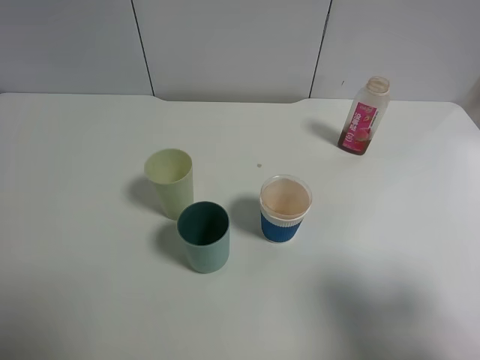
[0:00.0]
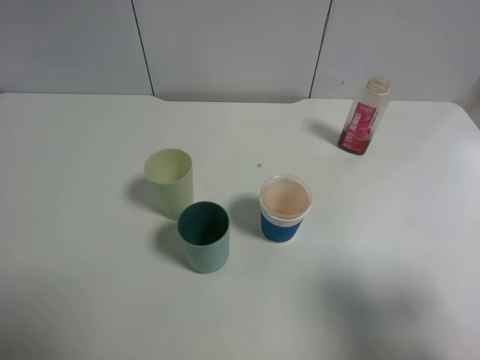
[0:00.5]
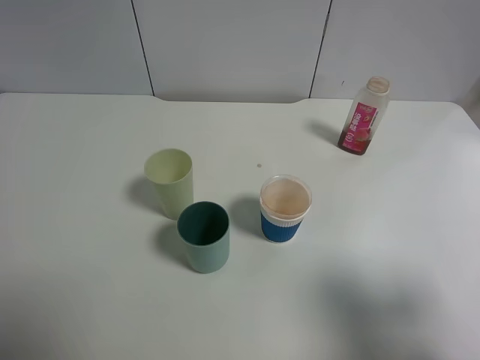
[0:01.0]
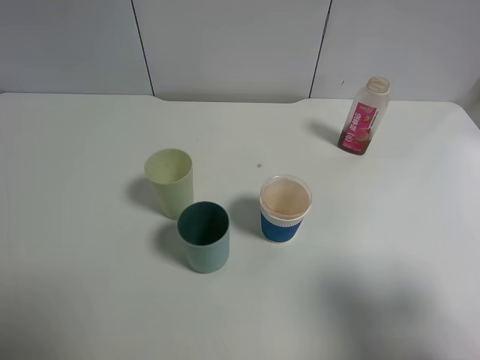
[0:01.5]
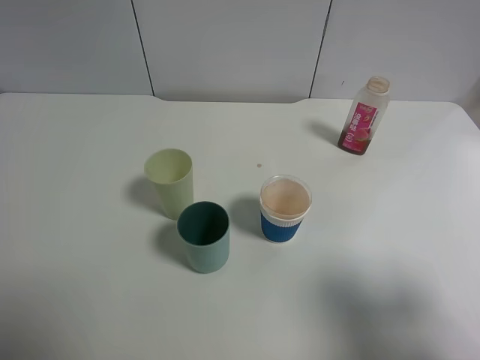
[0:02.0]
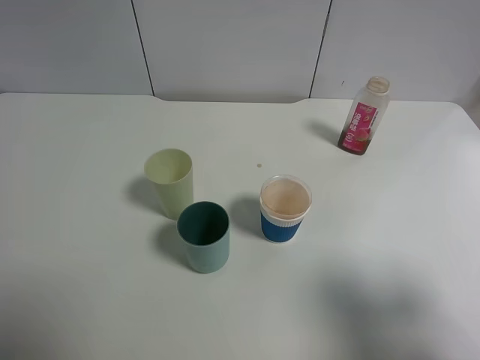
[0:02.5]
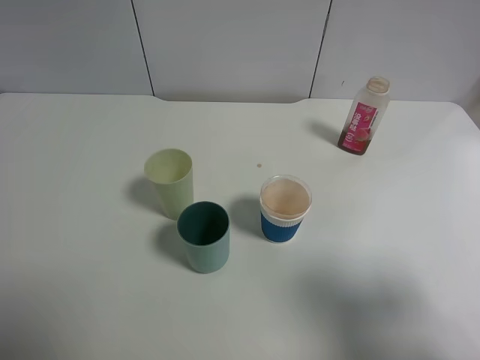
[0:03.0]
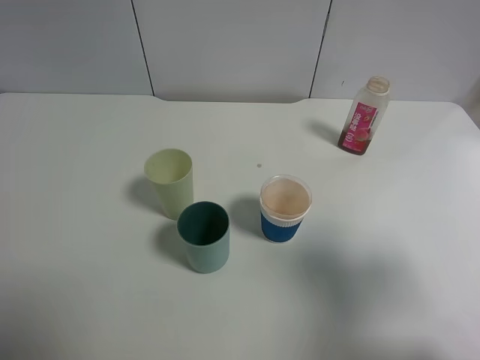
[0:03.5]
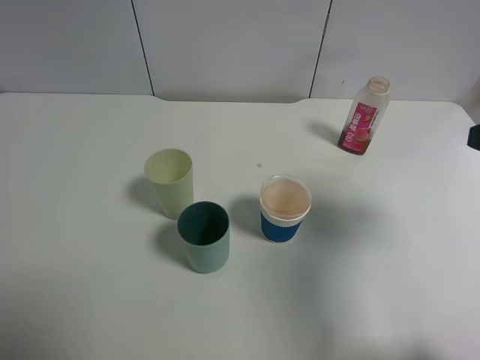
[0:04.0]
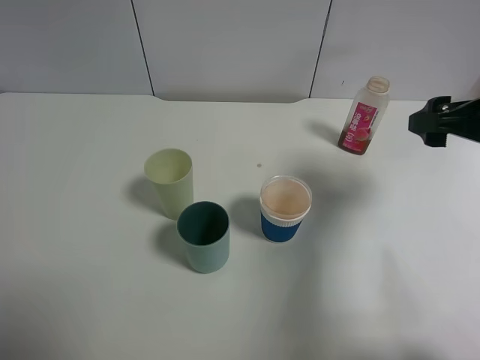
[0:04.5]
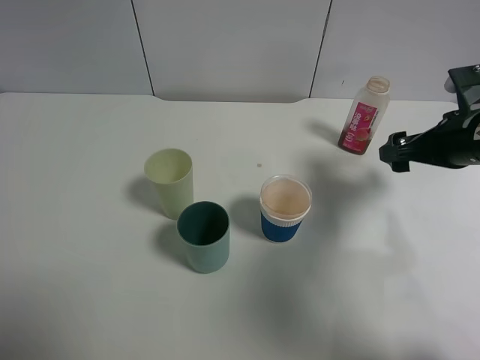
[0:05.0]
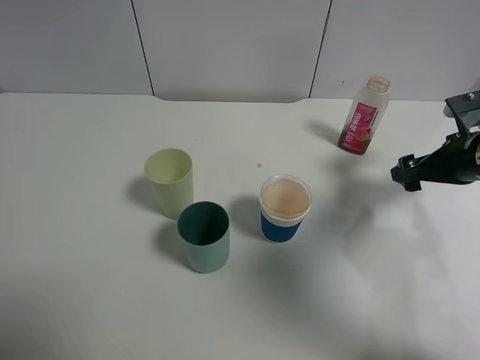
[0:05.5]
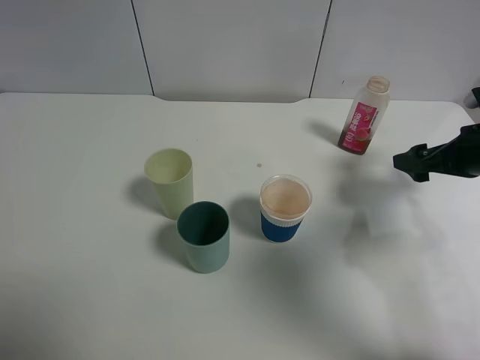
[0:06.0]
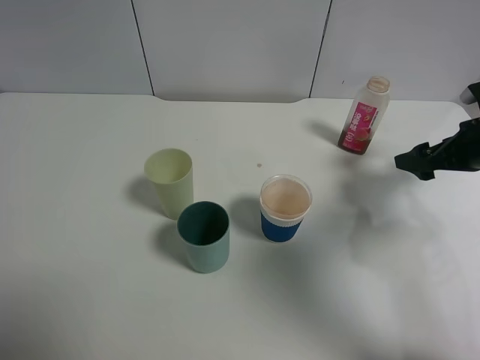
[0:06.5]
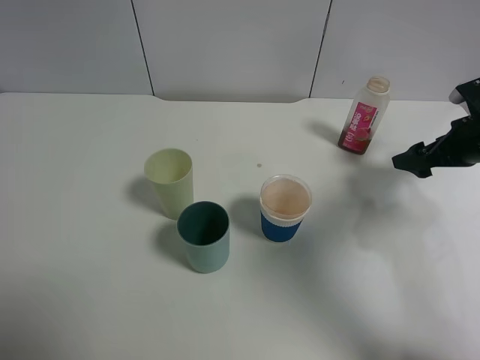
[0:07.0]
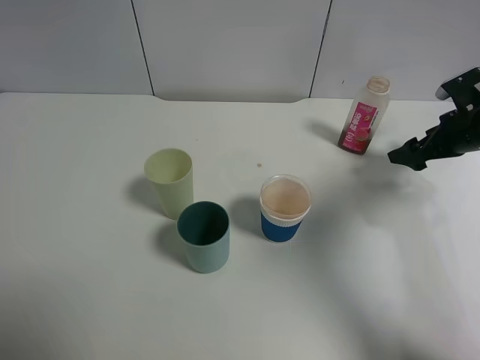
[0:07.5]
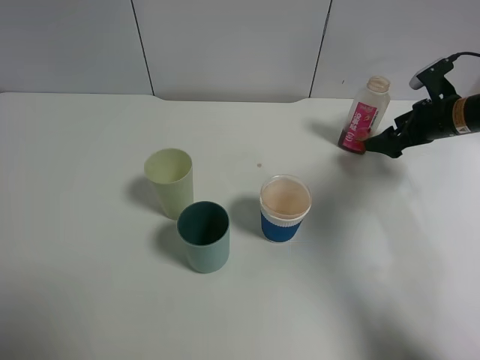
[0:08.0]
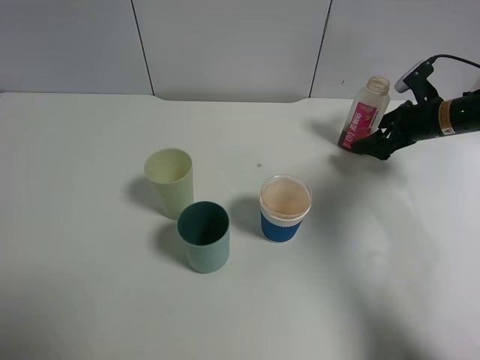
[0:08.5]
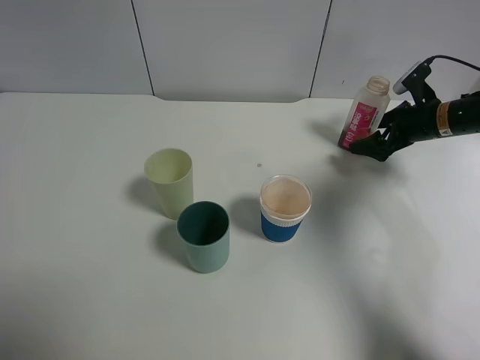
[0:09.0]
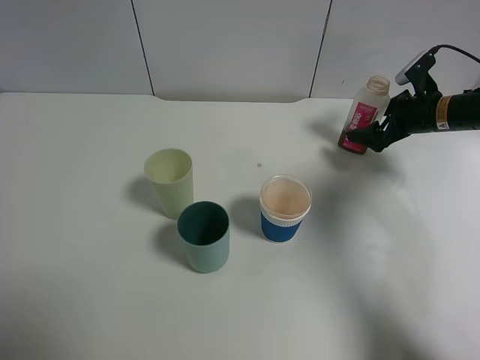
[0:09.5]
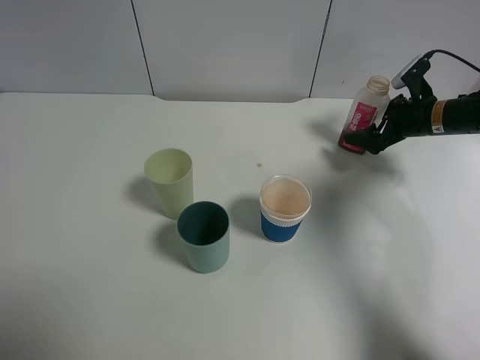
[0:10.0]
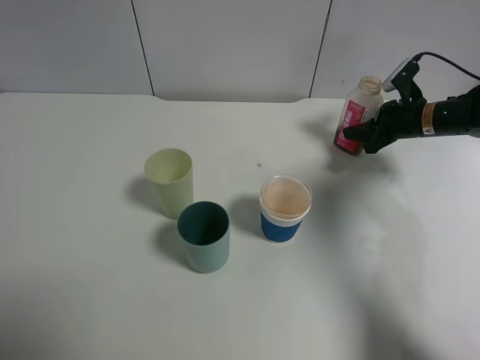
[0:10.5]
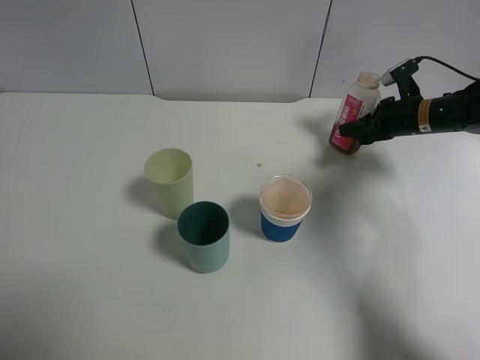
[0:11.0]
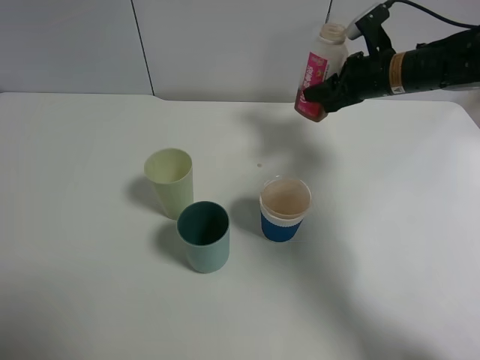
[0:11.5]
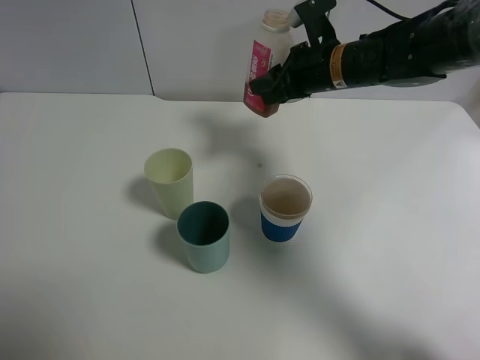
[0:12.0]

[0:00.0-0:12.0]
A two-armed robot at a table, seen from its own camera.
Task of the whole recording: use a gripper to hold the bottle of the drink and pour it into a random cup.
Step, 0:00.0 to 0:10.5: Grasp the cranberry juice bottle with the right gripper.
0:00.0 to 0:02.0: Neither gripper changes place.
0:02.0 to 0:04.0: The right gripper travels forward by about 15 cm.
0:04.0 to 0:06.0: The right gripper goes roughly 20 cm downward and forward.
0:06.0 to 0:08.0: The right gripper heads forward, covering some 10 cm.
0:08.0 to 0:10.0: The grippers move only a little.
0:10.0 to 0:12.0: The right gripper shifts approximately 20 cm to the left and upward, and closes up.

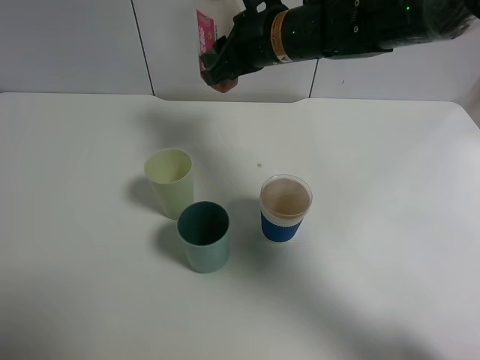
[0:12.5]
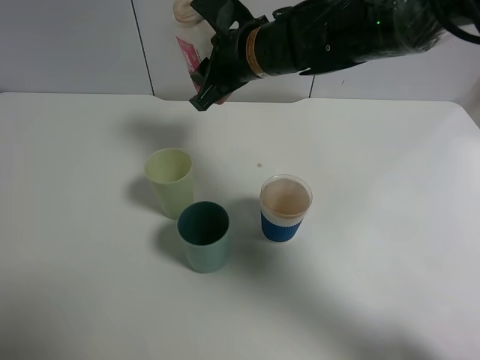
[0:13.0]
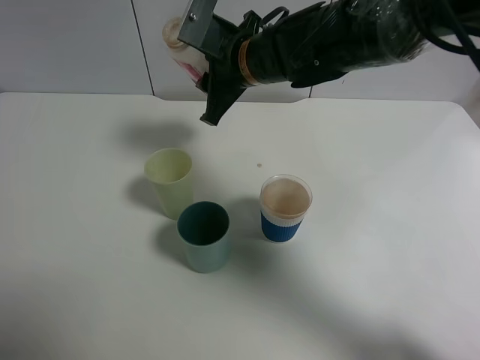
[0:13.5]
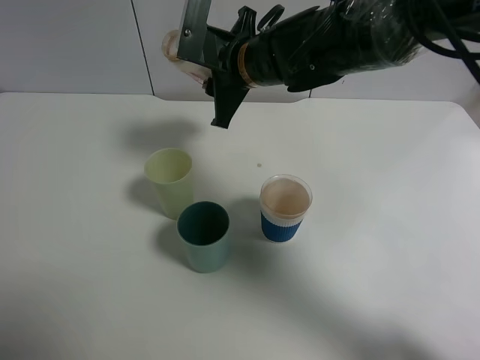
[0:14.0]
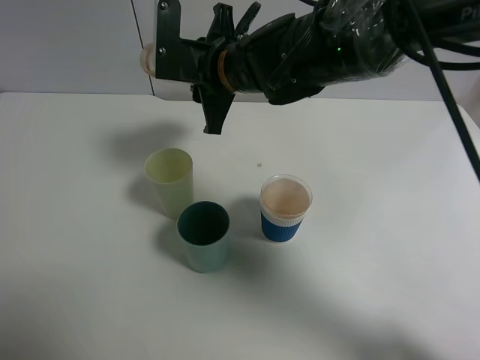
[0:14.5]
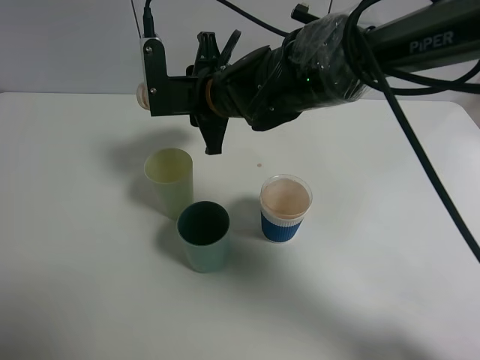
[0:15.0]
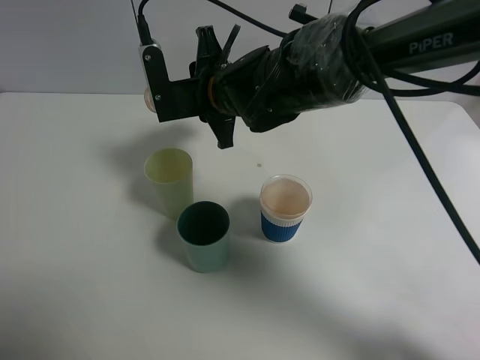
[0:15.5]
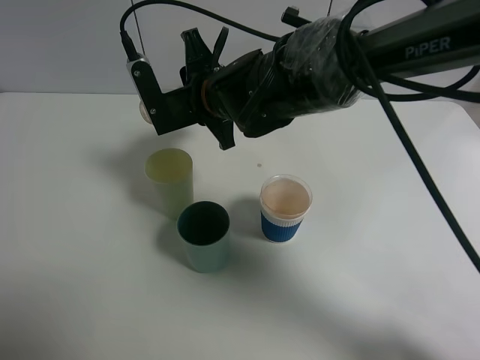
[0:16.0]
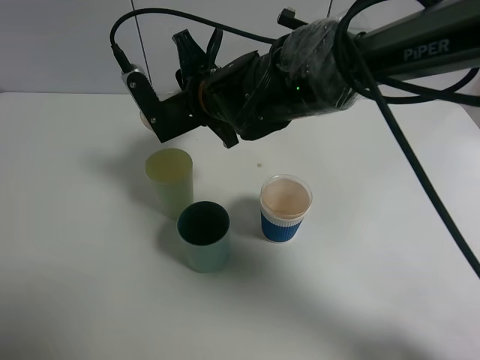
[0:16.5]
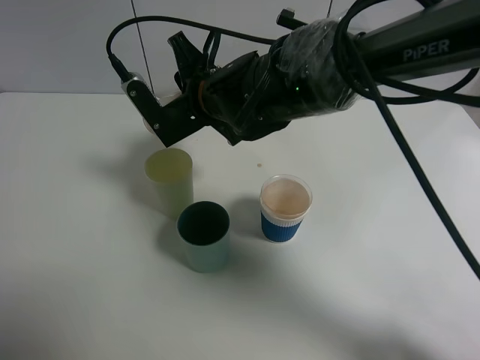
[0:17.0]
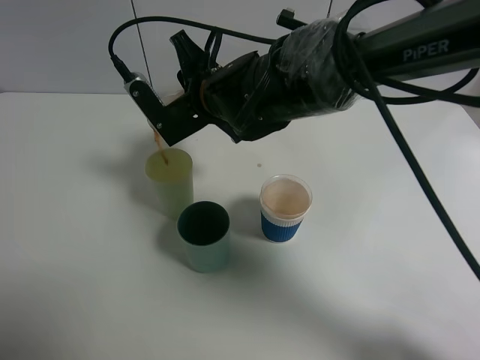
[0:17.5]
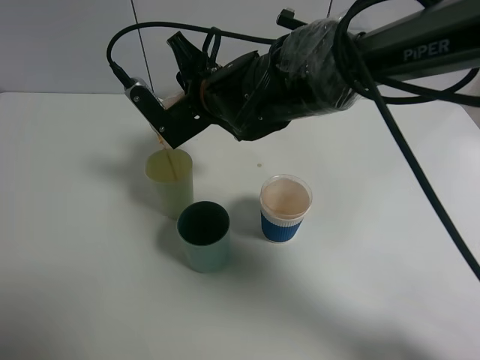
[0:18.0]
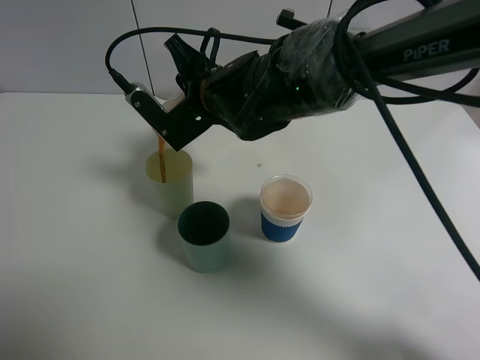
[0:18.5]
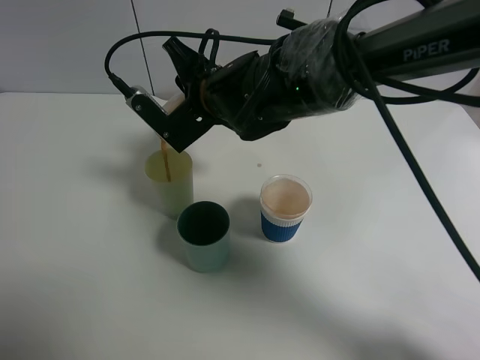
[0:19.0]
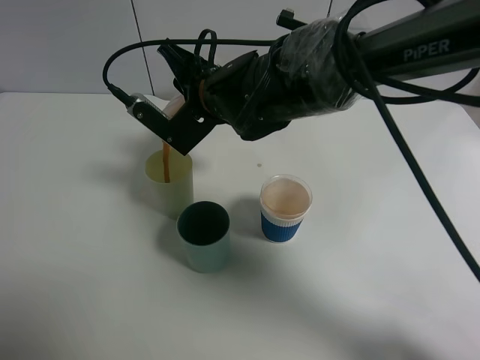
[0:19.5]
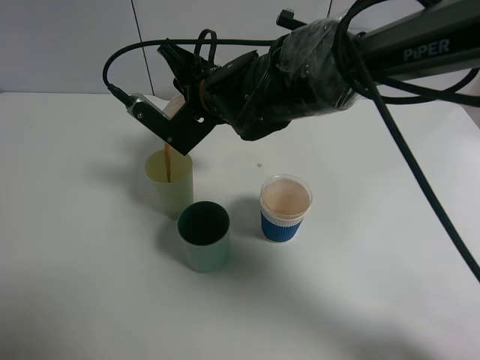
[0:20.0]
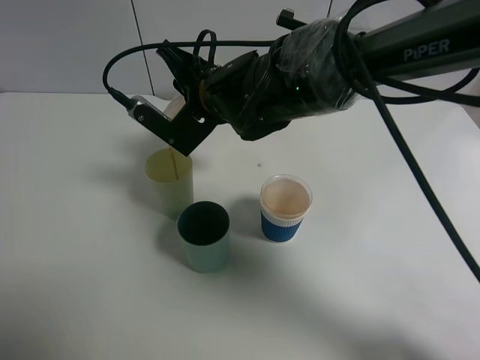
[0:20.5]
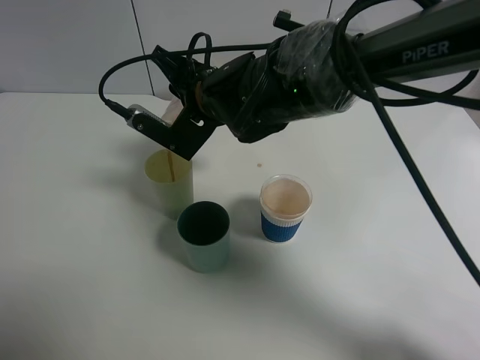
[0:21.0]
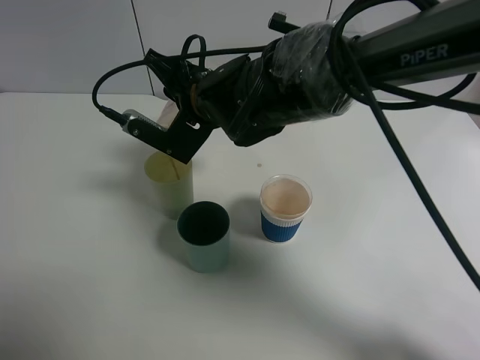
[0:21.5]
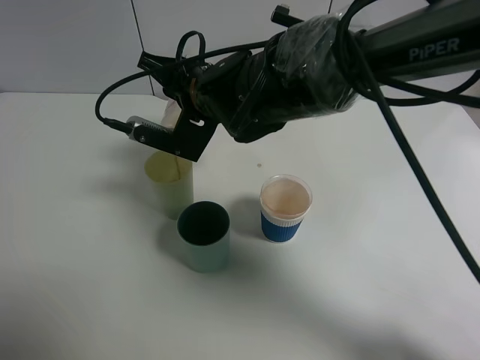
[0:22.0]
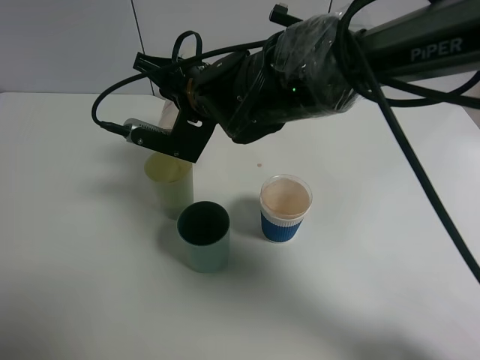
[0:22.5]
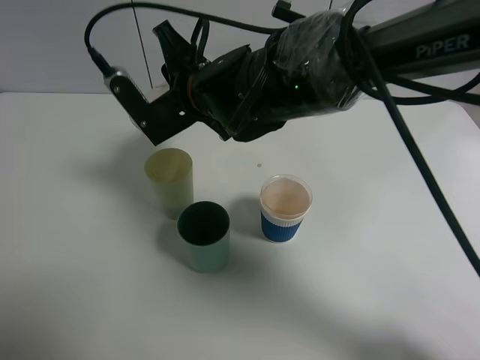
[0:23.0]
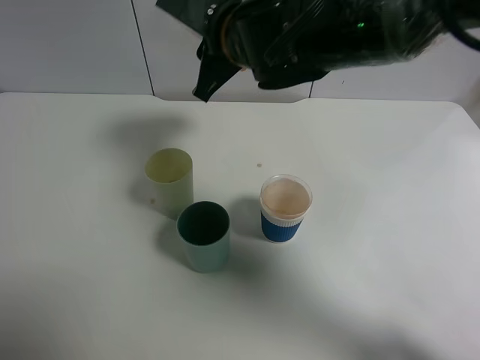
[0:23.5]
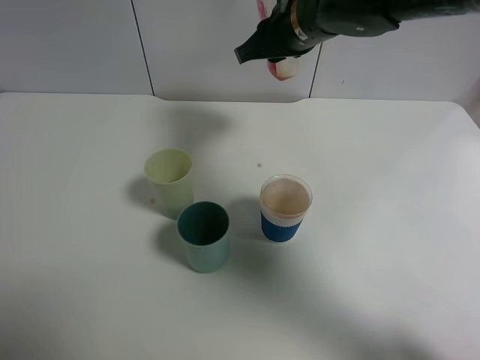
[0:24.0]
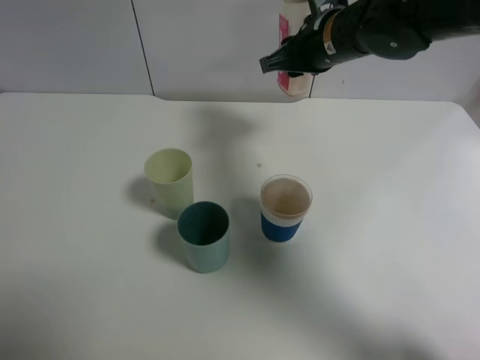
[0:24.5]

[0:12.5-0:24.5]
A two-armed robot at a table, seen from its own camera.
Task of the whole recording: use a gripper to hold the bottle of the drink and pour it into a random cup.
Step, 0:12.5 to 0:23.0: Pour the cranberry juice into the White Plastic Cup with the right gripper.
0:12.5 to 0:14.5: The right gripper goes roughly 5 cm to the left.
0:16.5 to 0:18.5: The grippers make only small movements.
0:18.5 to 0:20.5: The grippers move only a little.
0:20.5 to 0:22.5: The grippers make only small movements.
0:22.5 to 0:24.5: The right gripper goes about 15 cm to the right and forward.

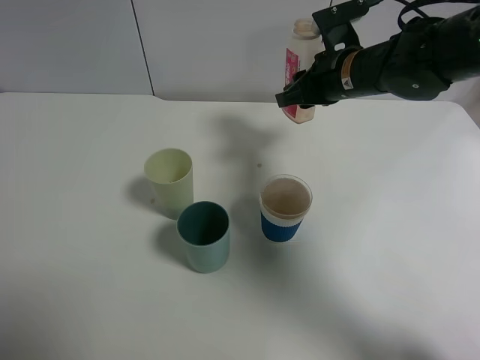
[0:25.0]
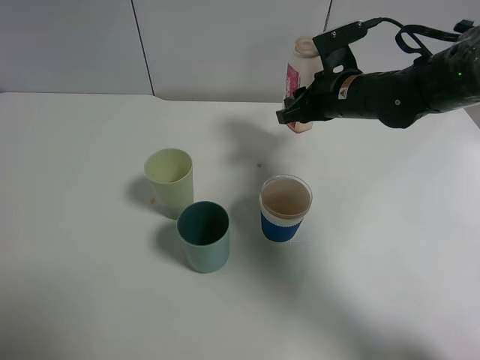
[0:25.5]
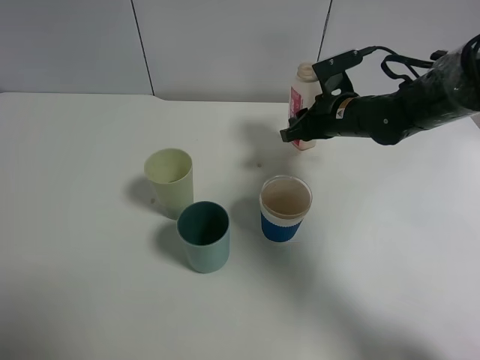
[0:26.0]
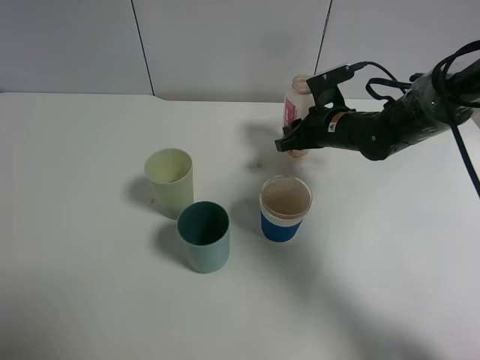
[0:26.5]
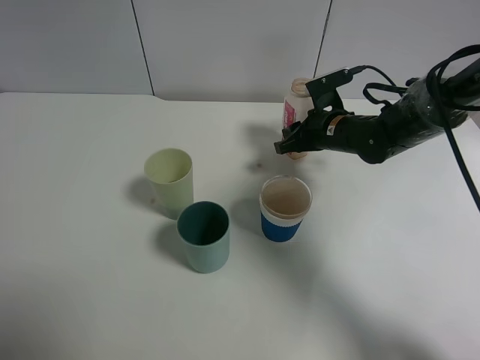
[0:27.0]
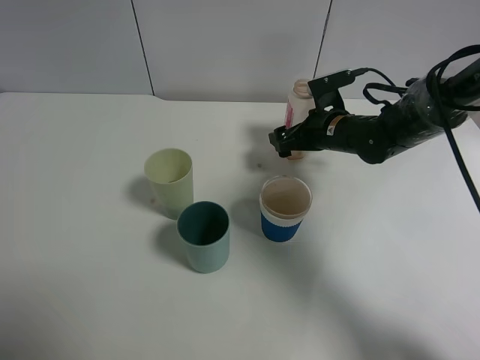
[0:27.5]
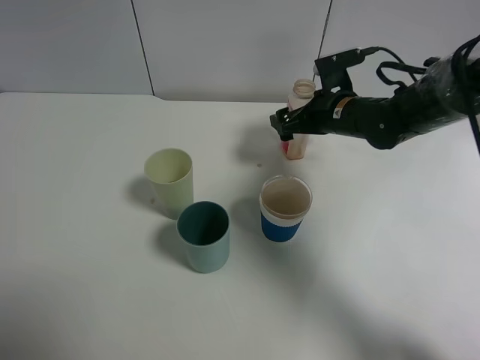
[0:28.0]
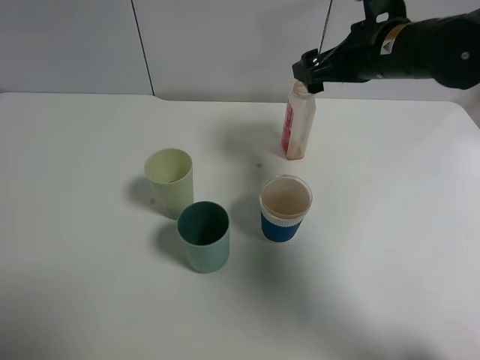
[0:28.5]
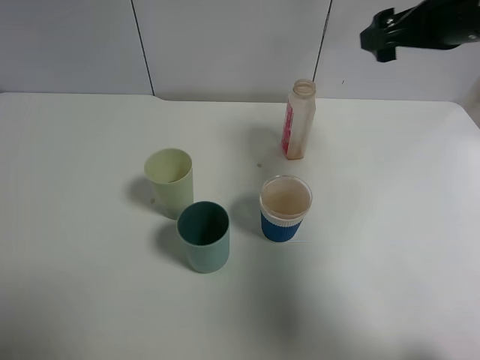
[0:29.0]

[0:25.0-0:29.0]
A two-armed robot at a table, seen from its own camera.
Task of the whole recording: use a gripper to hold the bottle of the drink and pour it into a random cup.
Step, 0:25.0 to 0:27.5: Place the cranberry juice bottle on the table with the right gripper.
0:25.0 to 0:27.0: The right gripper is displaced downward by about 10 cm.
0:27.0 to 0:29.0: The right gripper is displaced upward and to the right by some 25 cm, and opens.
